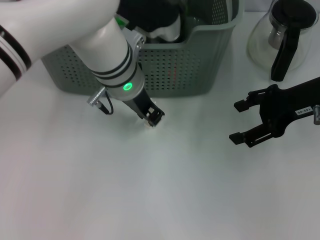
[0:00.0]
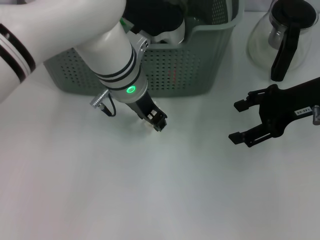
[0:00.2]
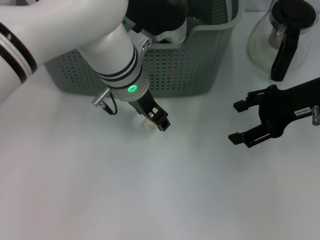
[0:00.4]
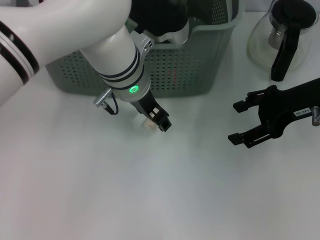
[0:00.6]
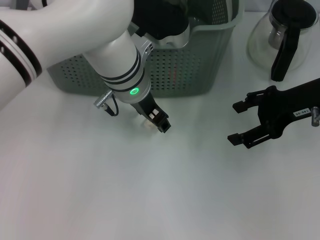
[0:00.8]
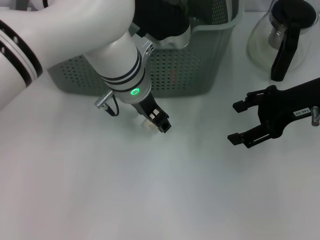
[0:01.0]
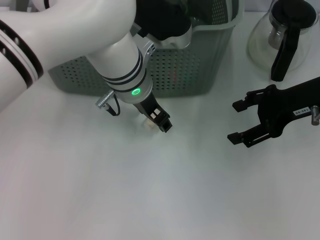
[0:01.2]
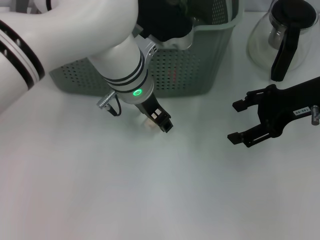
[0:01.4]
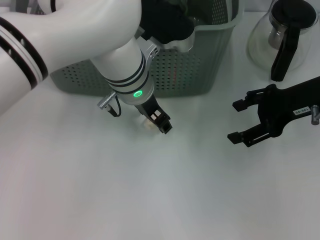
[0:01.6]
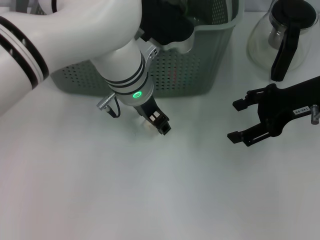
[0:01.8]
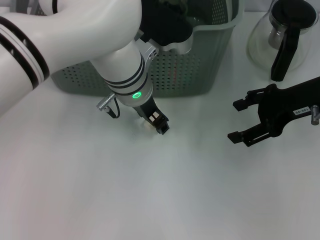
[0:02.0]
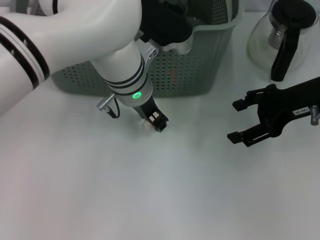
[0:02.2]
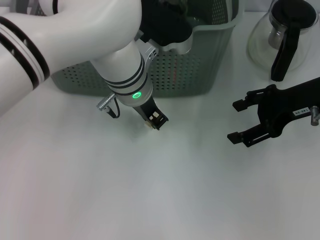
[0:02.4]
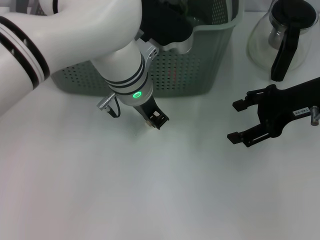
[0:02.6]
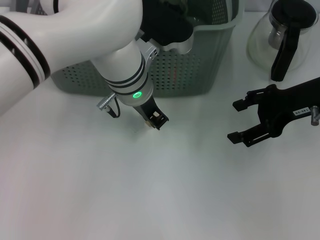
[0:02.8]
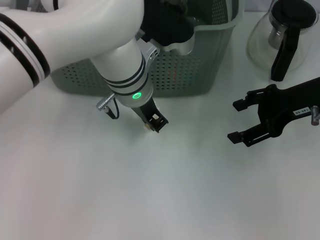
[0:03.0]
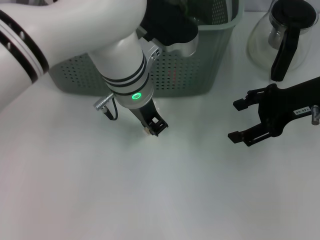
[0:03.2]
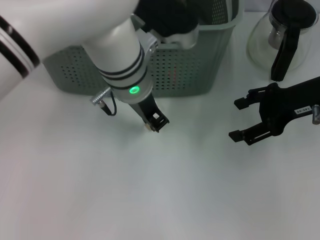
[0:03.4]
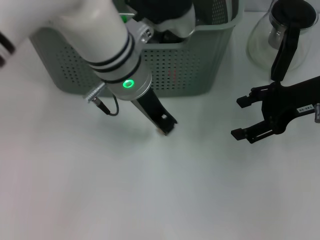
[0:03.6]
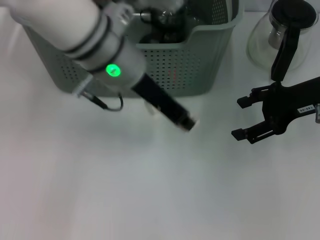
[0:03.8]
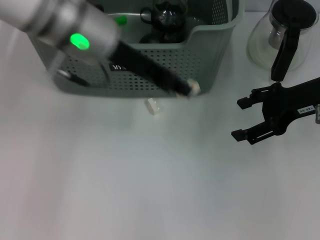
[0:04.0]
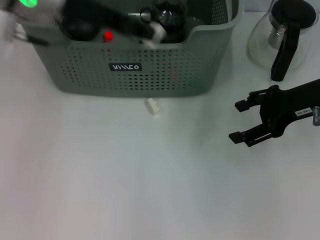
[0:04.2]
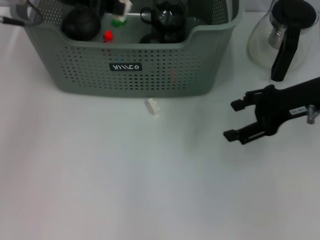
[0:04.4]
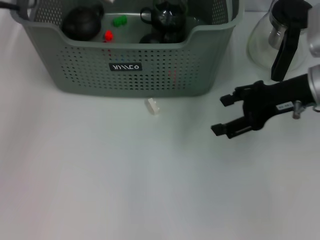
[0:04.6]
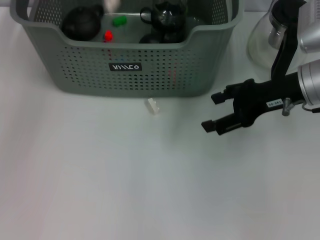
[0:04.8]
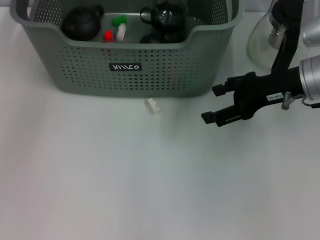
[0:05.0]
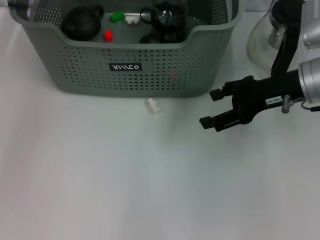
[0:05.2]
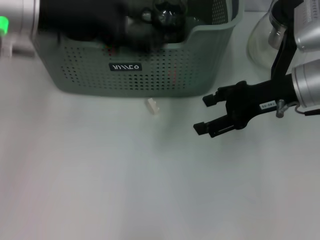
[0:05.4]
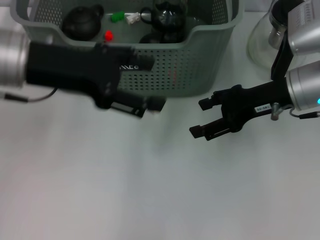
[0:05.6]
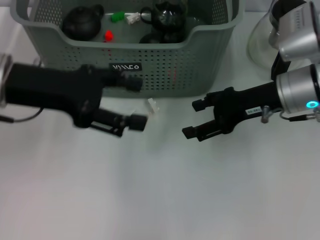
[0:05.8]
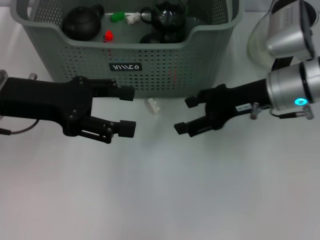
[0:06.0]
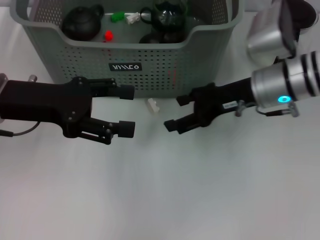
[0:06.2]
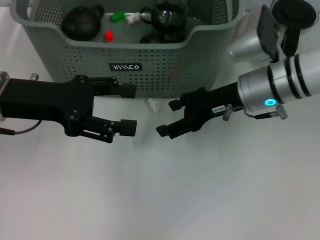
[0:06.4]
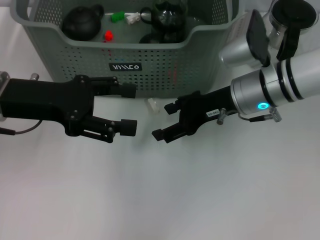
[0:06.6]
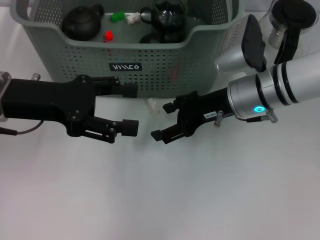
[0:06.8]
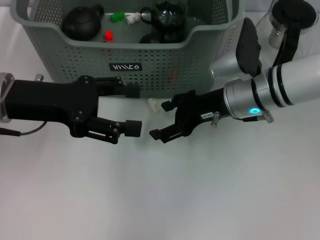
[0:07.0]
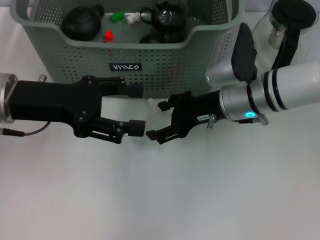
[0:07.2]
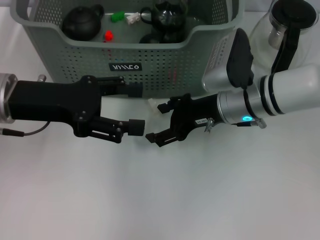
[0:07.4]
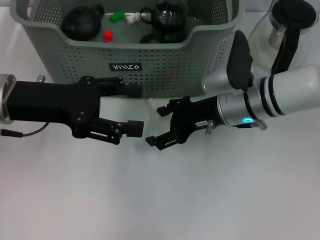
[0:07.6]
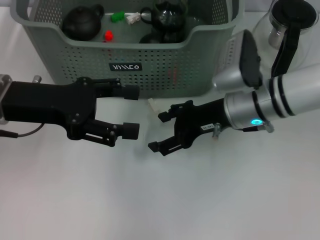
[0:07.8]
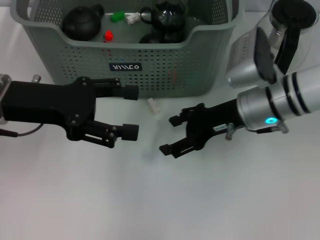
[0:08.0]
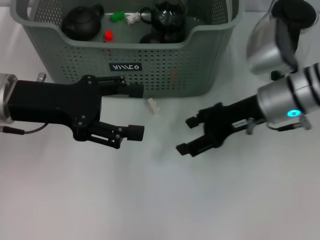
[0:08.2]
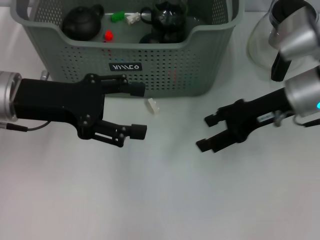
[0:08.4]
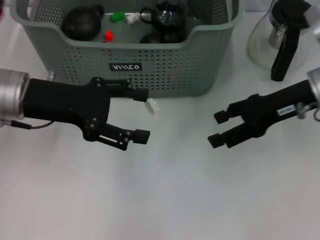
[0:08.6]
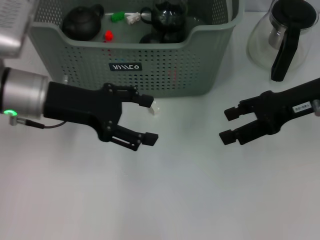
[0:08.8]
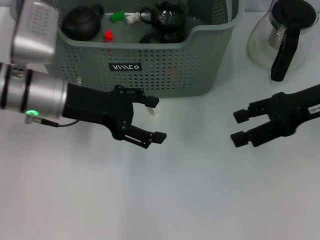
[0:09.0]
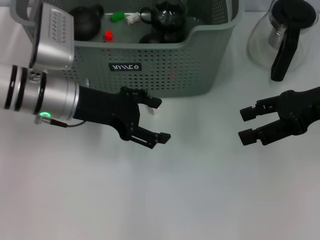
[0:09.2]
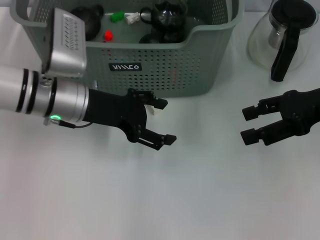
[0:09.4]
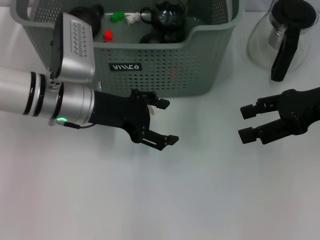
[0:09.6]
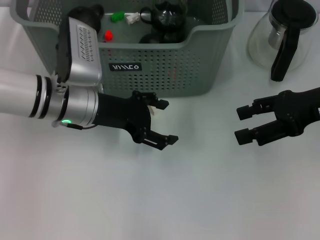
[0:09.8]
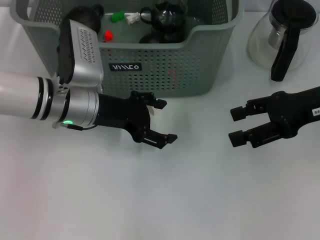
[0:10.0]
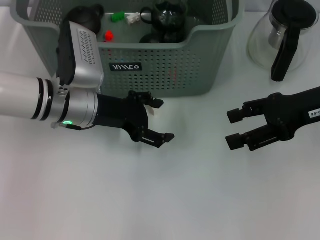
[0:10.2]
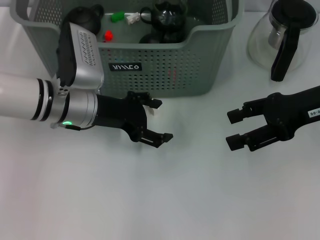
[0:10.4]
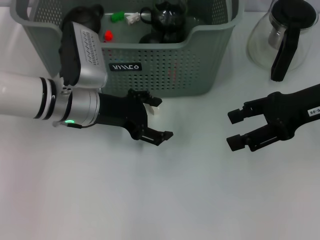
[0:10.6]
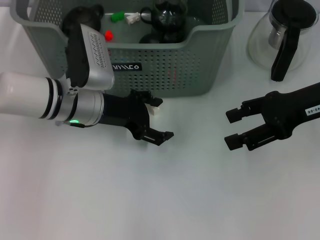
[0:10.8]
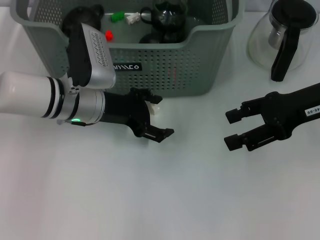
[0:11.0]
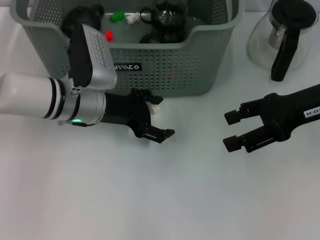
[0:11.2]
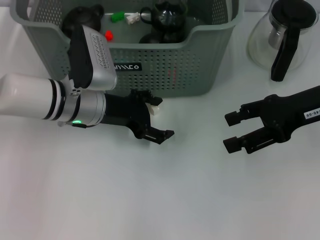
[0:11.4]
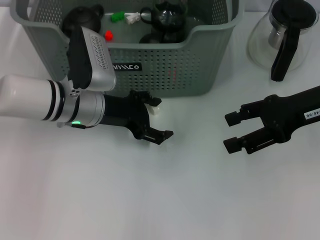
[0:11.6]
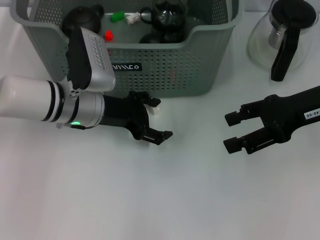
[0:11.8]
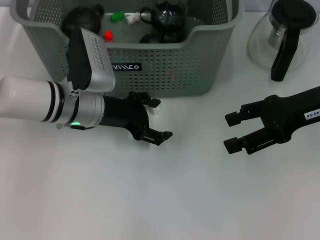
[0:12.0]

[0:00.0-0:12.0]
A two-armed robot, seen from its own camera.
Task of the whole recording: pick up the teacup on the table and place it into the storage bin, pick up the block on the table and place it into the storage bin.
Step, 0:00.0 to 0:02.8: Grasp the white block with left gripper.
Step, 0:03.0 to 0:05.0: Place the white block in the storage box with left gripper.
0:00.0 to 0:01.6: The left gripper opens up.
0:01.6 to 0:03.0: The left gripper closes.
0:03.0 to 0:04.4: The left gripper moves to the left and upward, approximately 20 cm.
0:04.4 to 0:06.0: The left gripper travels backward and downward by roughly 15 cm, and opens up. Meanwhile the right gripper travels to the left by about 5 cm.
0:06.0 to 0:07.6: The right gripper travels to the left by roughly 5 cm.
0:07.6 to 0:09.0: The left gripper changes place by approximately 5 cm. The right gripper goes about 15 cm to the right and upward.
0:09.0 to 0:10.4: The left gripper moves roughly 5 cm.
0:10.4 to 0:12.0: There are only small adjustments of the grippers.

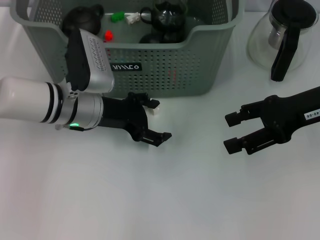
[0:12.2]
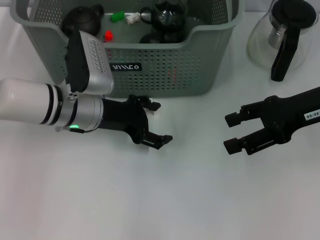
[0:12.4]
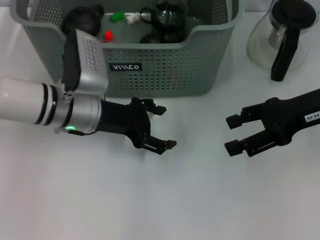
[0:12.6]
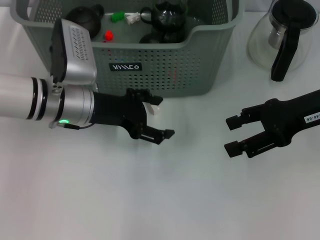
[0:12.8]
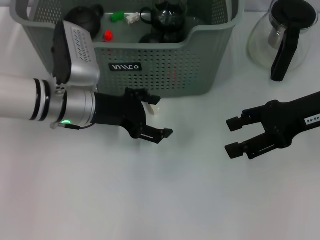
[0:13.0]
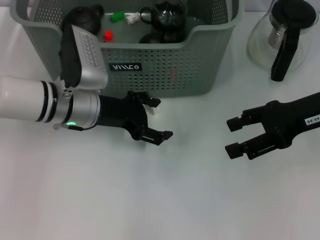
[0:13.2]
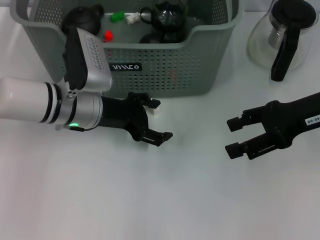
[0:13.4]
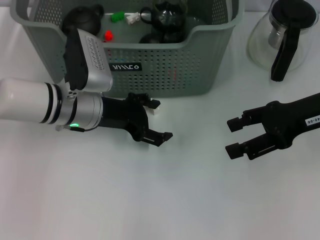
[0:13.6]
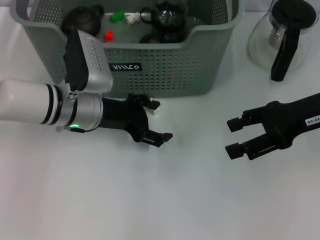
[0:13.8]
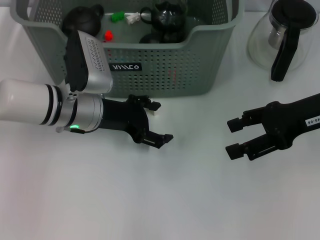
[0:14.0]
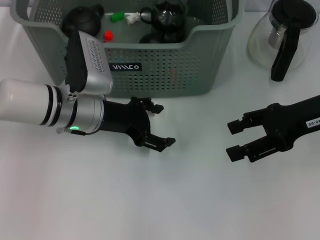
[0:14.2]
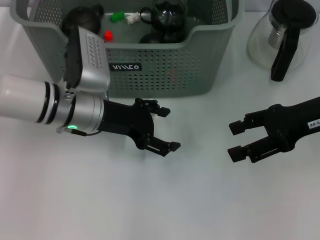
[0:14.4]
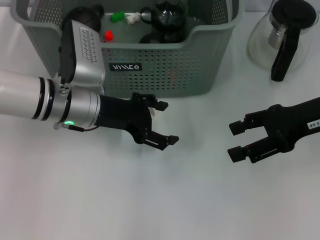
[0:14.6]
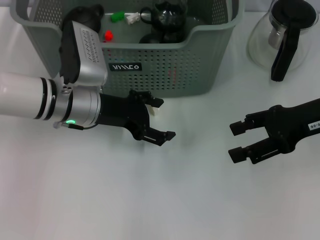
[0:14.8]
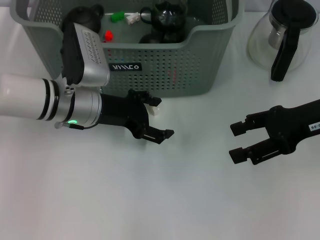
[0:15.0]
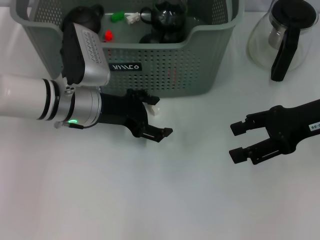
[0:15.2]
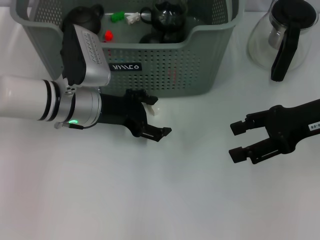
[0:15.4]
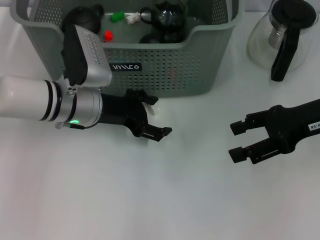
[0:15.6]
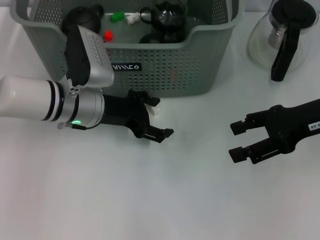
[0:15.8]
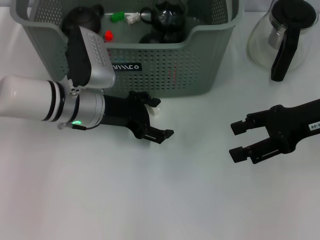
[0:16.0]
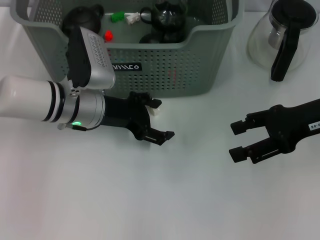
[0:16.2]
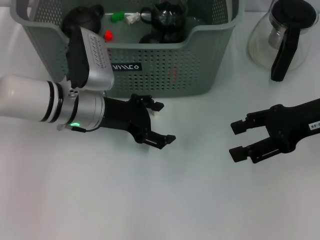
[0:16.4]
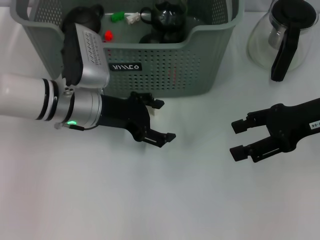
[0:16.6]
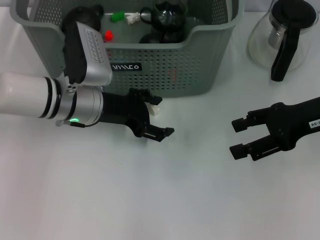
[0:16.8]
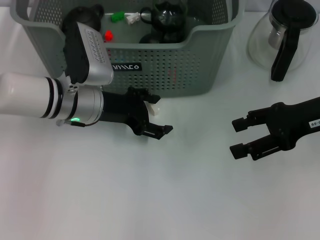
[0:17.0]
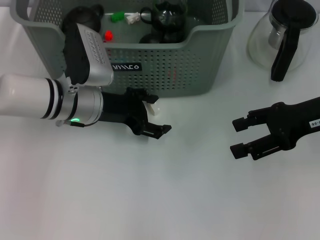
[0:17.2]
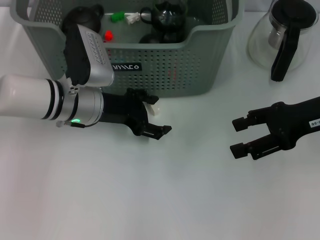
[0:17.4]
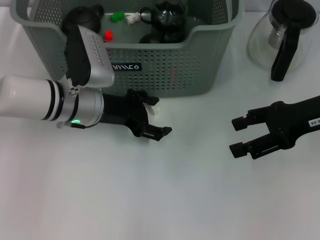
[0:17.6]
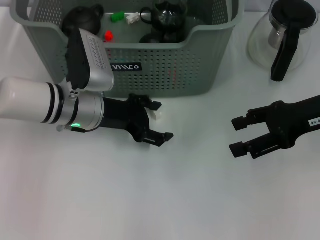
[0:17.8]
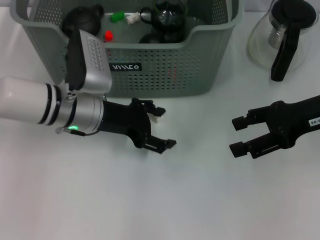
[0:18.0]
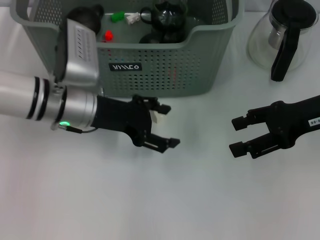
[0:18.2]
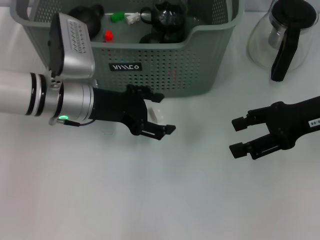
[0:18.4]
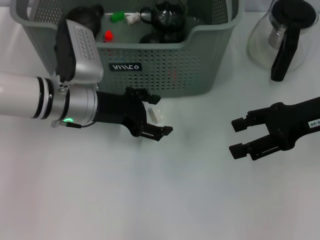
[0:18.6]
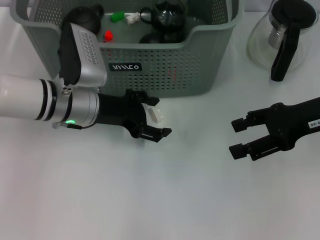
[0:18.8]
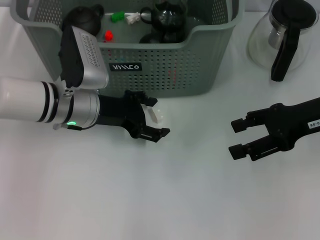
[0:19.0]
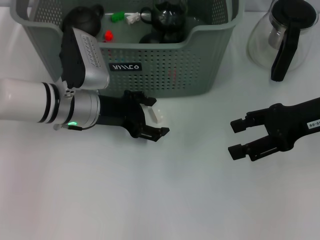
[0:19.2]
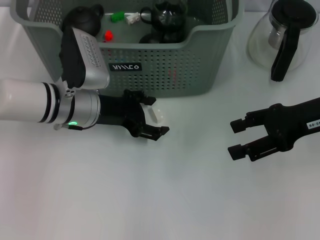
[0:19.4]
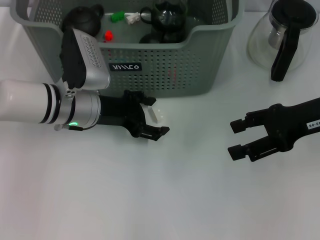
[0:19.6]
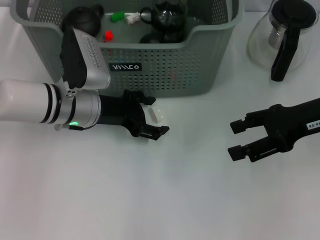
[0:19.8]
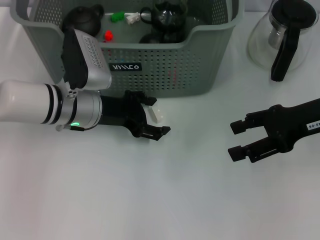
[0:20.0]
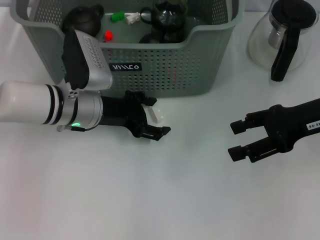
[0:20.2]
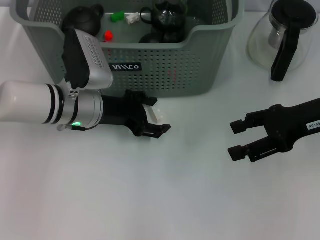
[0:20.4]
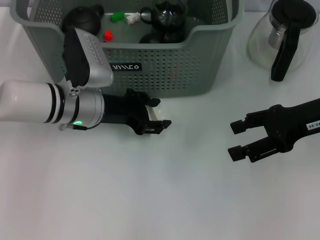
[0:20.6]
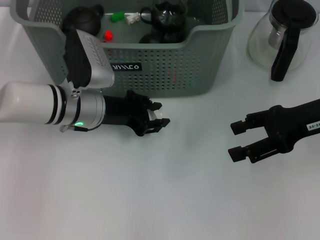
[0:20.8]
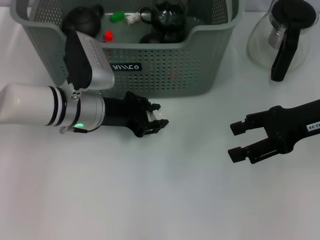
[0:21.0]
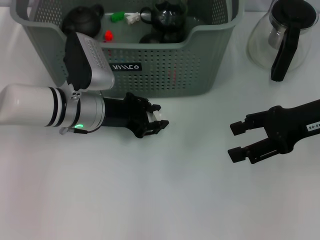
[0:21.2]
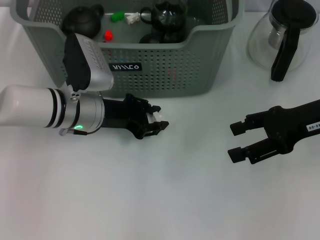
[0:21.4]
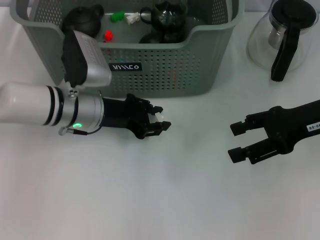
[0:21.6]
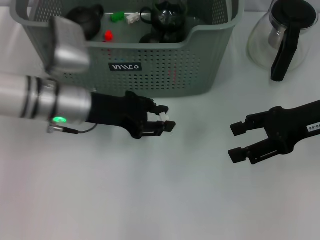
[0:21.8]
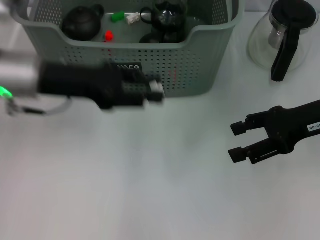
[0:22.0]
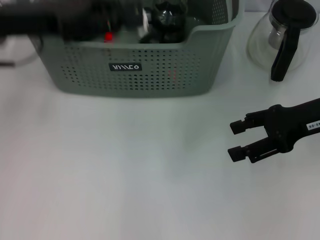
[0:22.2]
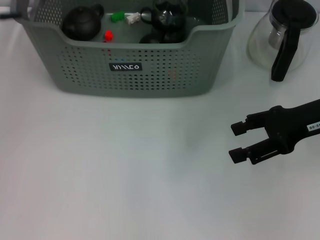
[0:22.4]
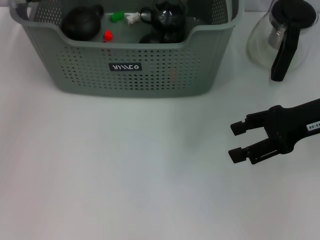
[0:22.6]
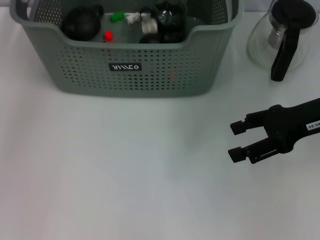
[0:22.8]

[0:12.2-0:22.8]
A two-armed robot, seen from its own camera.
Task of the whole recording: pick up the teacup on the table and place it into the storage bin, pick up the block on the table and place it into the storage bin.
Step, 0:12.2 to 0:21.2: Grasp the white block with left gripper.
0:12.2 to 0:15.2: The grippers move only a little.
0:15.2 to 0:16.8: Both grippers stay put.
0:16.8 to 0:19.8: There are only small adjustments of the grippers.
0:19.8 to 0:21.2: The left gripper closes up.
0:21.2 to 0:22.8: The left gripper heads upward and forward, covering approximately 20 cm.
